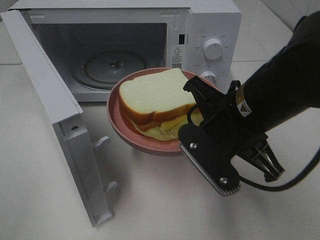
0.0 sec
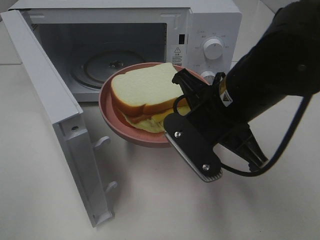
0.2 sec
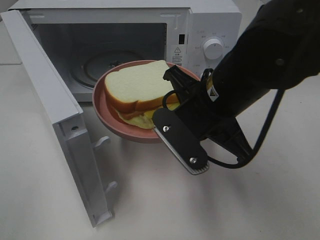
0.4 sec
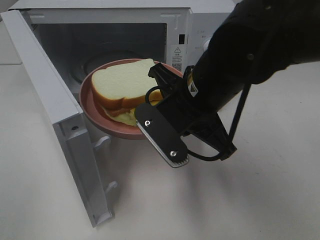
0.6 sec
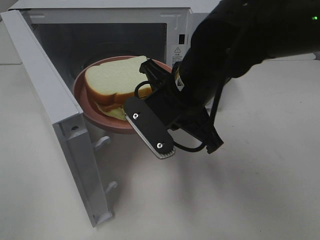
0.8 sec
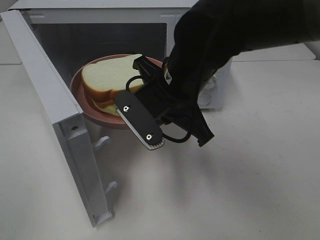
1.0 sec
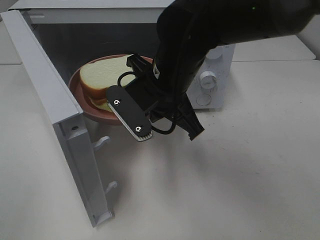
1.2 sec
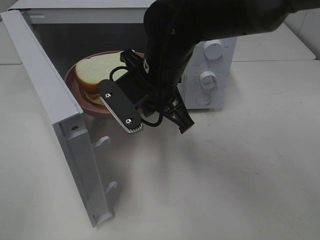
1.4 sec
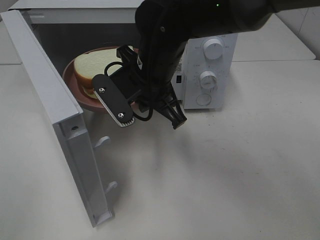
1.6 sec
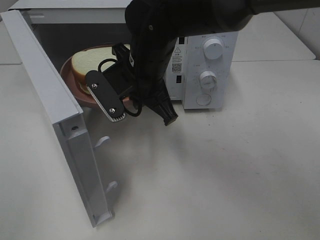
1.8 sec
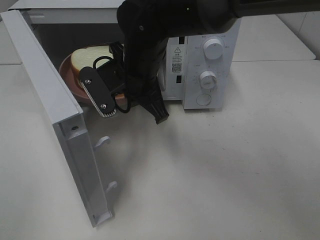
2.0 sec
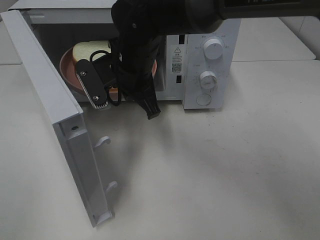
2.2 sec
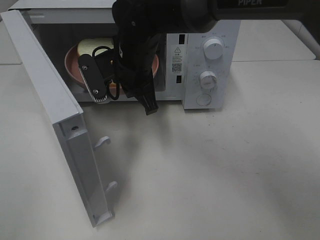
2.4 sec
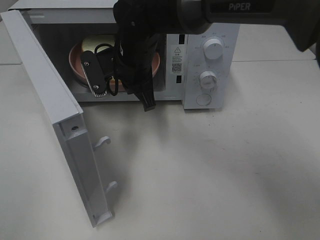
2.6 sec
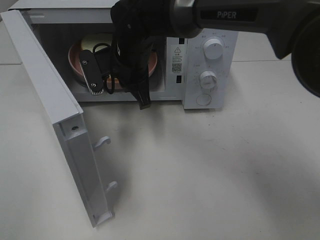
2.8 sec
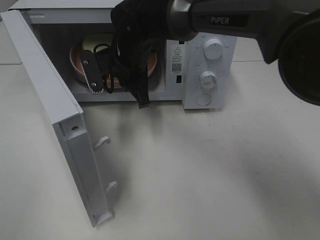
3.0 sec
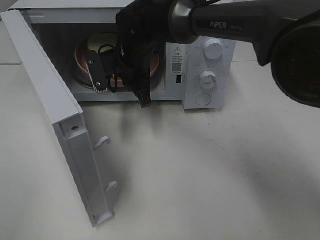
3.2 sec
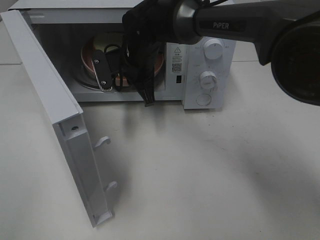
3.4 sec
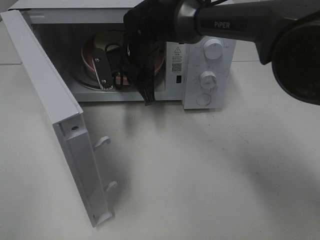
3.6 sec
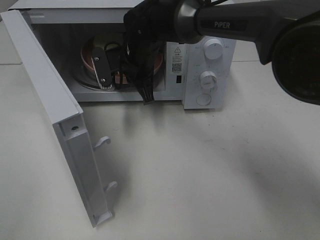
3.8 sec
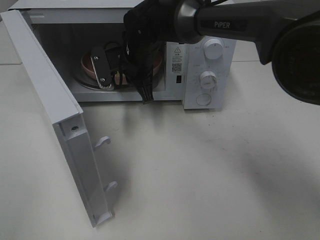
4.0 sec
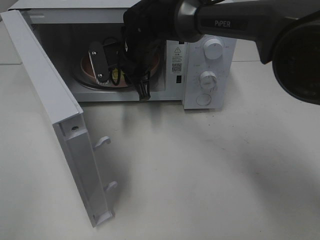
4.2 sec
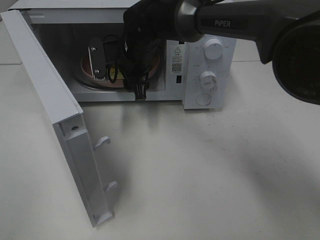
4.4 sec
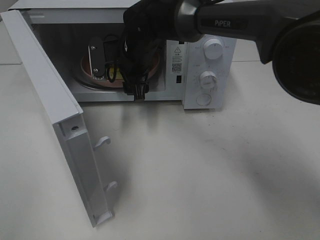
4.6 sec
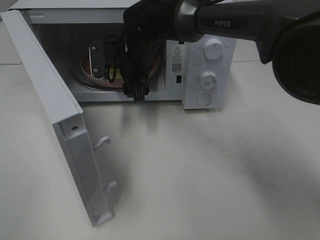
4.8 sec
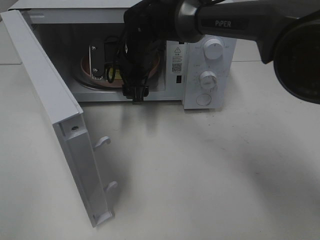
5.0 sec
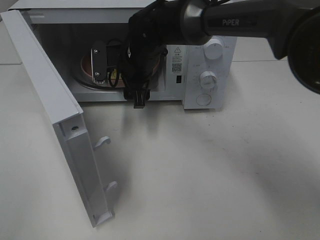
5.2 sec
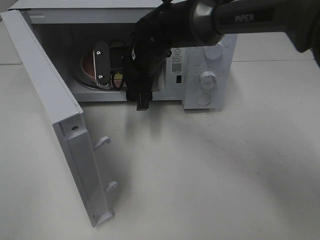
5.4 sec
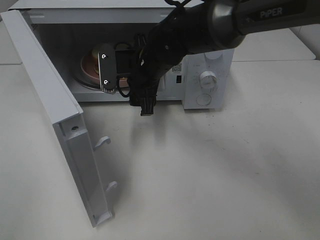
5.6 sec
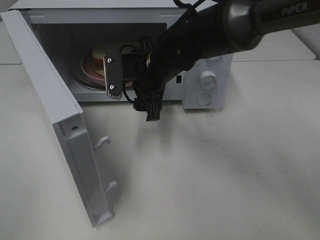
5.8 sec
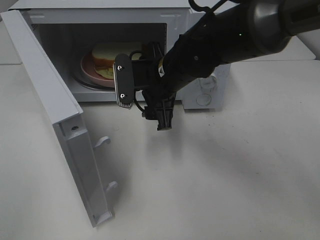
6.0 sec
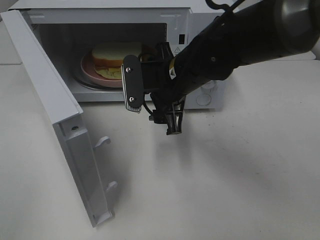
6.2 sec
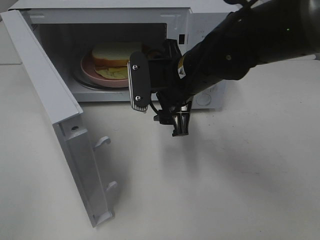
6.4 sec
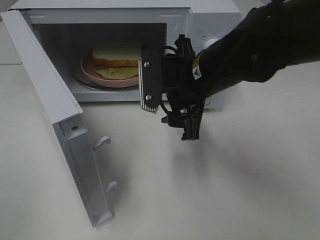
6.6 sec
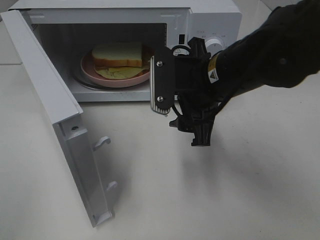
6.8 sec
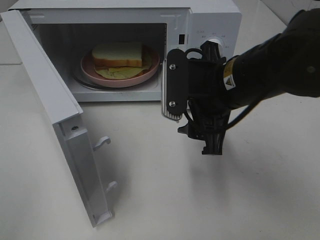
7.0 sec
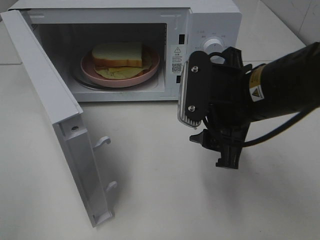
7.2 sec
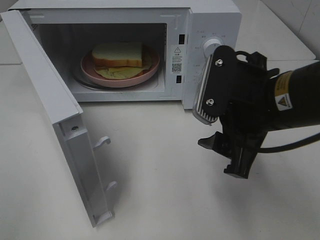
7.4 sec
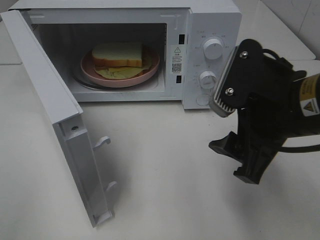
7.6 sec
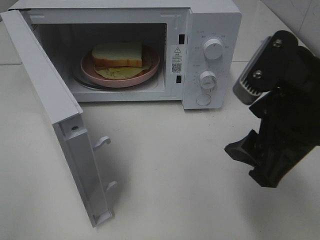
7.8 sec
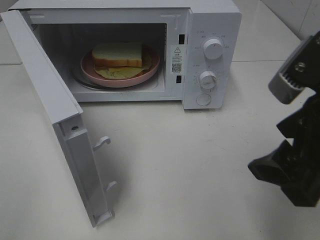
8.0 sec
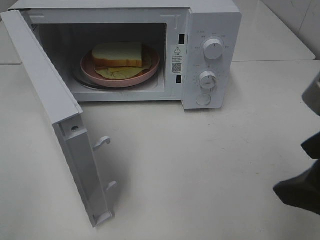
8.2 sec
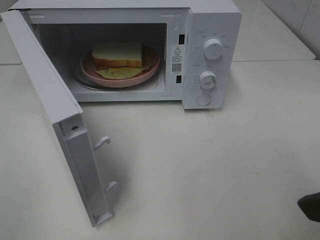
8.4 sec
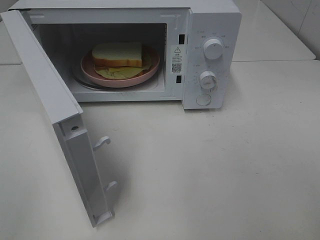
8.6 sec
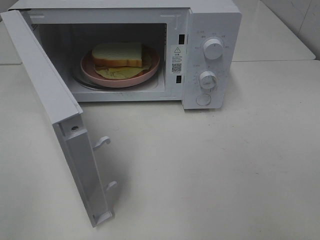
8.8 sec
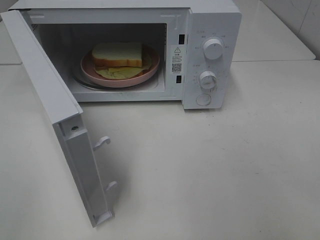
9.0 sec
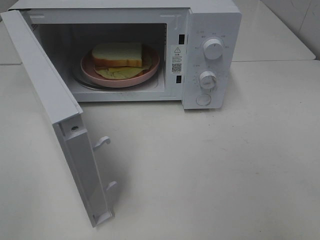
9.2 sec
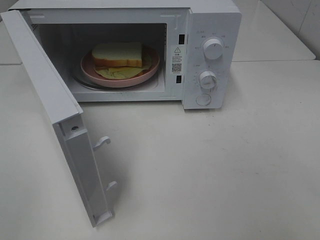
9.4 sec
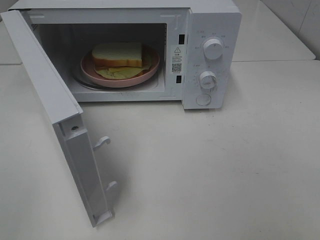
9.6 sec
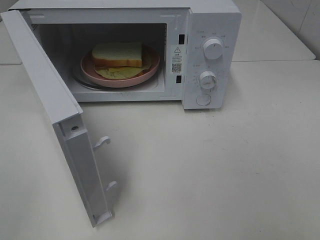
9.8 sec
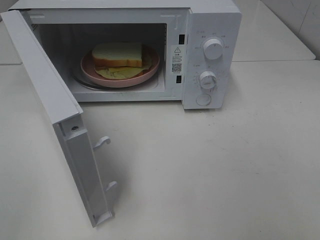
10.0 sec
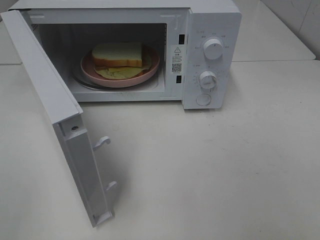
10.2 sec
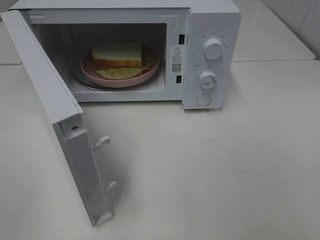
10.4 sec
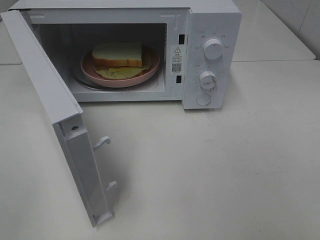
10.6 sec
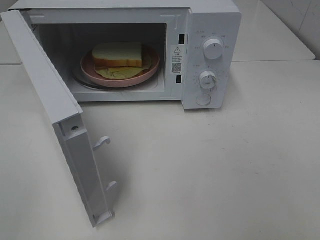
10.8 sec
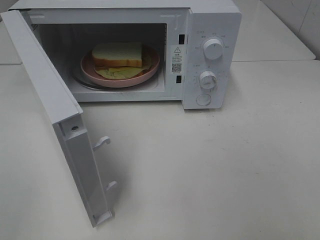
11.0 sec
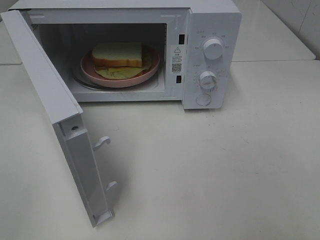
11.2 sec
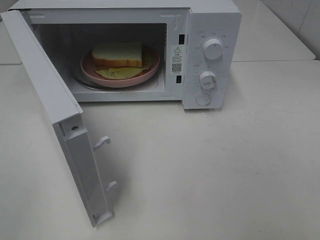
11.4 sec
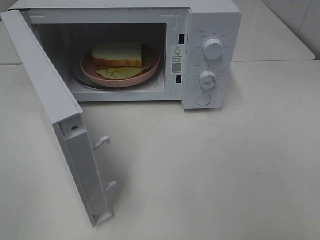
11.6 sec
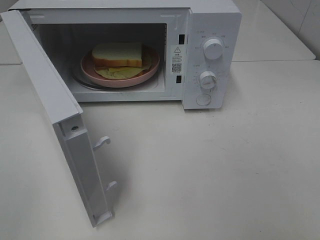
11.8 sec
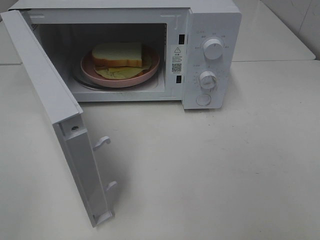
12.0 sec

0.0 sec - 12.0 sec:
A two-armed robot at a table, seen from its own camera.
Task of the whole recording: Heat Sandwich.
Step, 0.0 sec - 5.4 sec: Right hand: place the plate in the microwave.
0.0 sec - 1.6 sec: The right gripper moves to the left and forward, about 15 cm.
1.6 sec - 3.0 sec: The right gripper travels forward by some 10 cm.
3.0 sec - 4.4 sec: The right gripper opens its fingers.
4.4 sec - 6.0 sec: The right gripper travels backward and to the right by roughly 10 cm.
6.0 sec - 7.6 sec: The right gripper travels backward, to the right and upward by some 20 cm.
7.6 sec - 9.0 sec: The right gripper goes approximately 20 cm backward, to the right and upward.
10.4 sec - 12.0 sec: Neither gripper changes place.

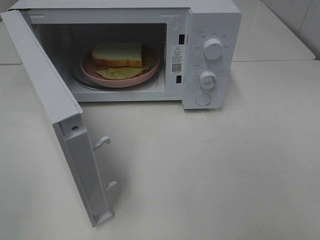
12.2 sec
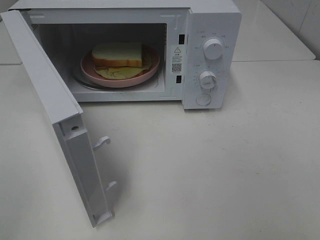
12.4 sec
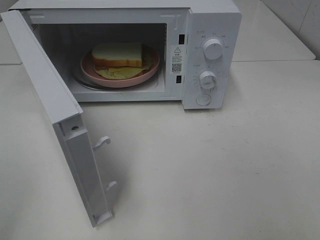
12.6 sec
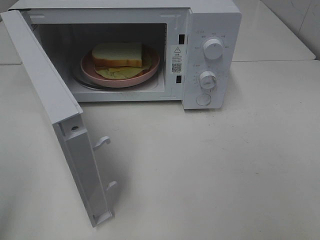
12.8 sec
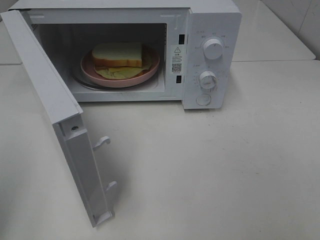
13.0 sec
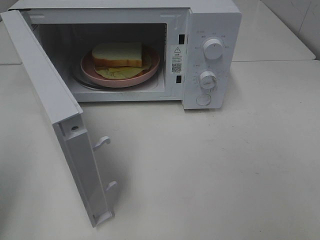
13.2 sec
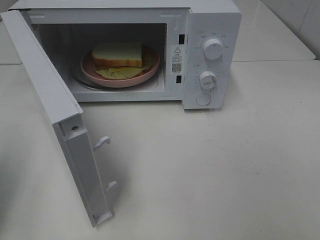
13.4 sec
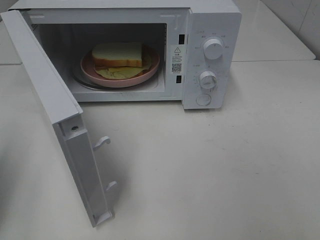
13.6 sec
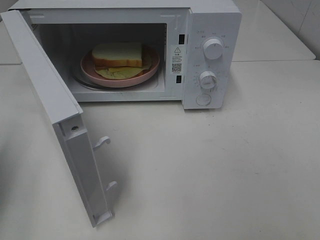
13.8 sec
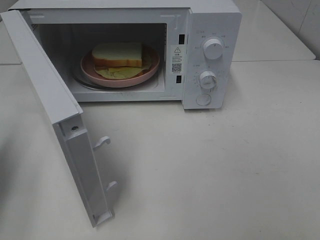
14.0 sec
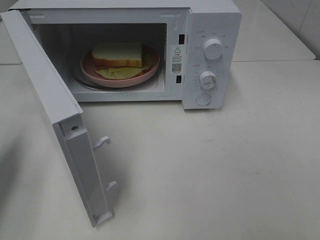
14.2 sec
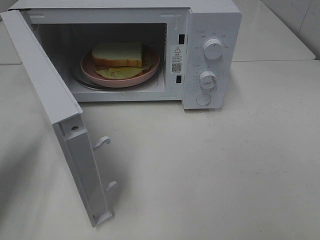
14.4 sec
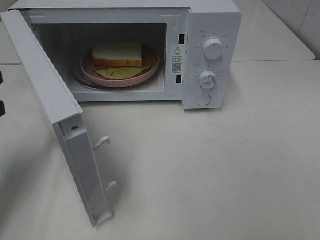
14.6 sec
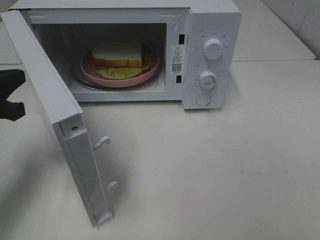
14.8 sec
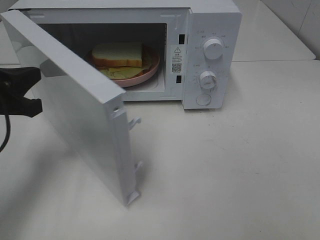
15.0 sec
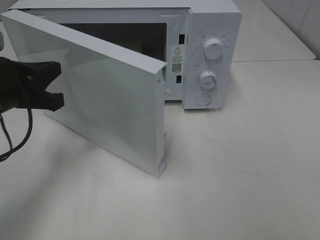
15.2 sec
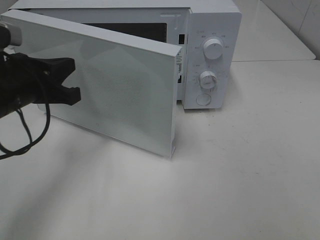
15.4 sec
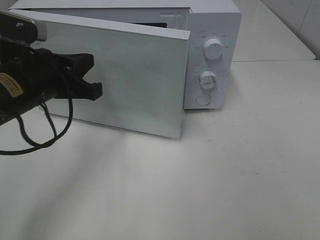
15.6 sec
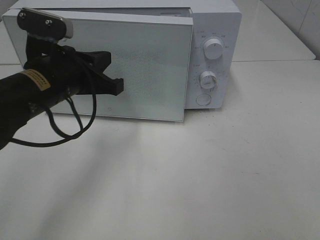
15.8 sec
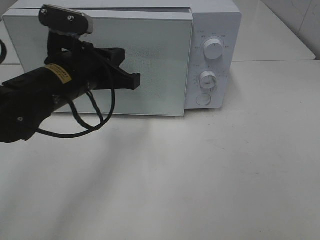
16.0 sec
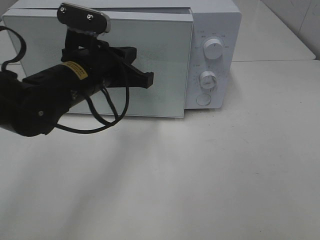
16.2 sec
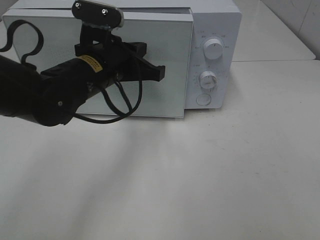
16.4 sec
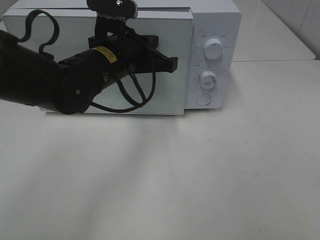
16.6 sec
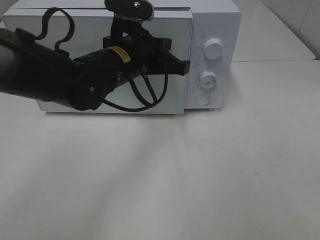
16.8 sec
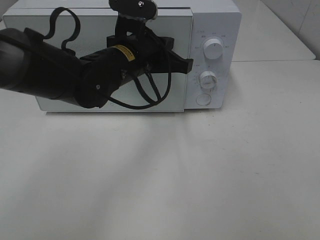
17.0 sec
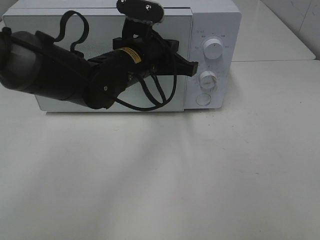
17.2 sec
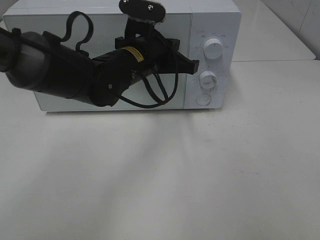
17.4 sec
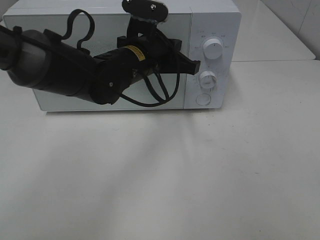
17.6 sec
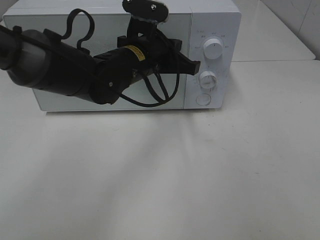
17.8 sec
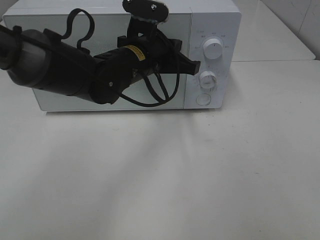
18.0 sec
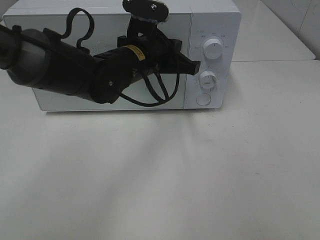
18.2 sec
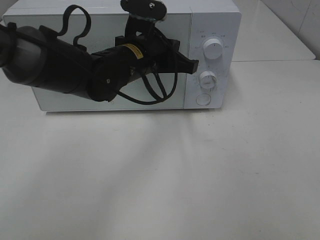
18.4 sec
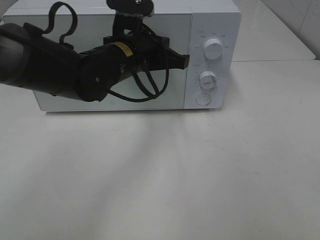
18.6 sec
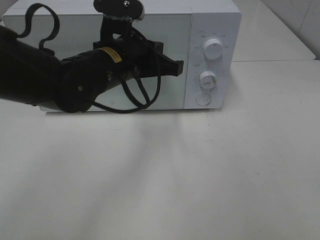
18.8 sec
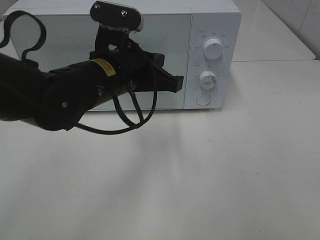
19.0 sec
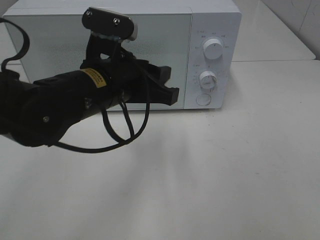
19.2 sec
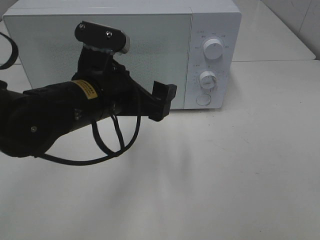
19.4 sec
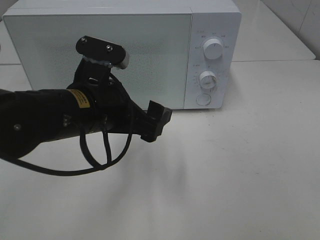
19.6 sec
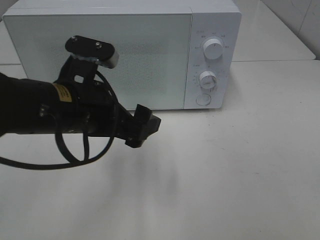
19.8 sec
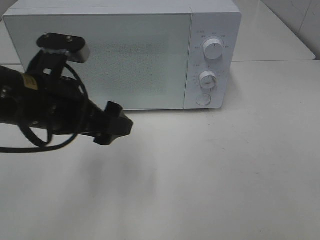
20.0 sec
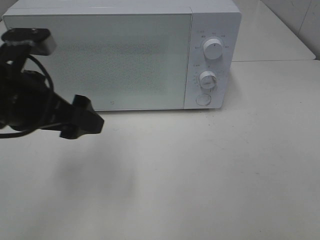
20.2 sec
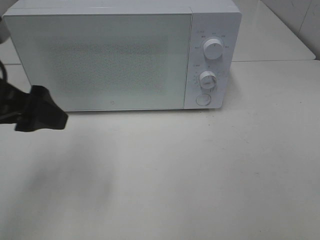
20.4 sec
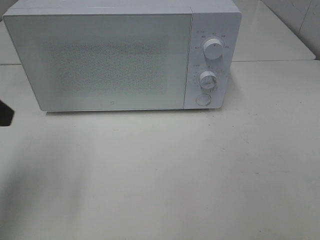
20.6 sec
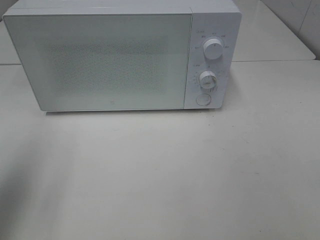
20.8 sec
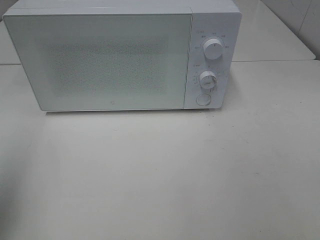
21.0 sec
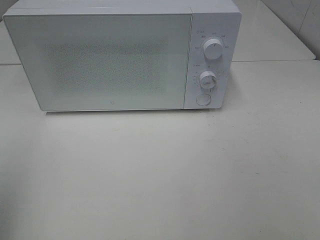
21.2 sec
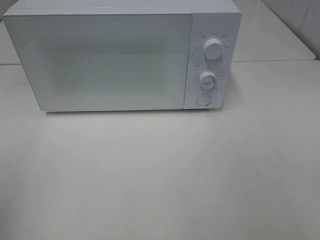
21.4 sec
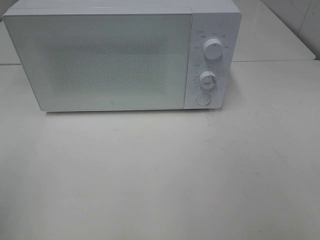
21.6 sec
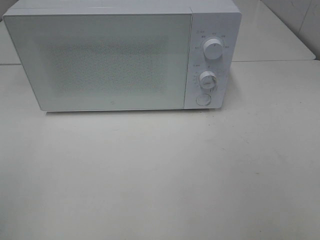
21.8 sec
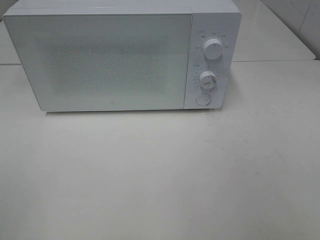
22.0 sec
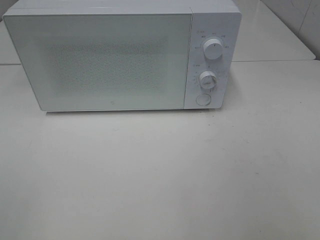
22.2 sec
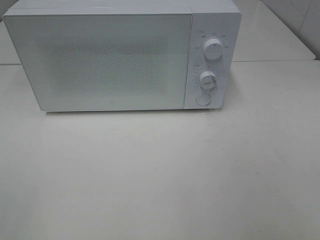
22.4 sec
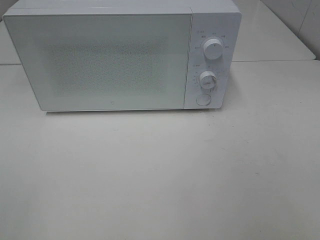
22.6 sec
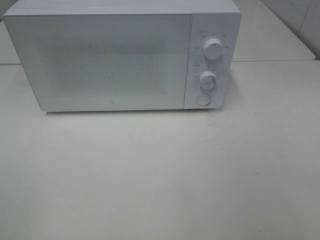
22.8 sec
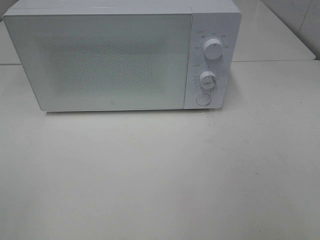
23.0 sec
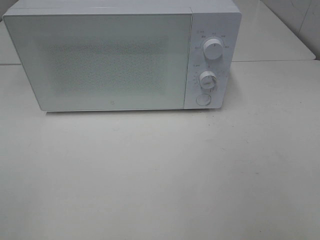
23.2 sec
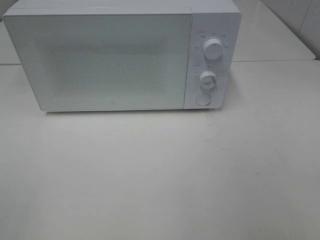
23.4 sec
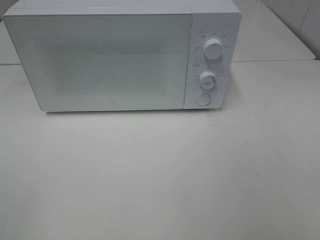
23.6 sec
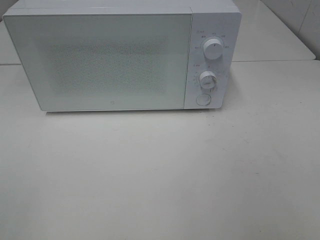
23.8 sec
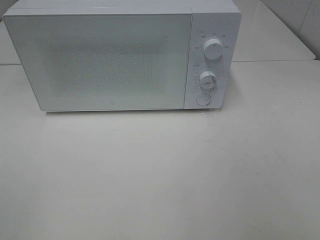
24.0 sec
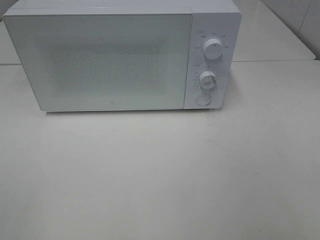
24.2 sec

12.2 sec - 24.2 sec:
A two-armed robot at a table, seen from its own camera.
Task of the whole recording: Heat Sandwich.
Step, 12.2 sec - 19.0 sec: Left hand: close the microwave door.
12.2 sec - 13.8 sec: The left gripper travels forward by roughly 20 cm, and closes.
13.8 sec - 15.2 sec: The left gripper is displaced to the right, forward and downward by some 15 cm.
15.2 sec - 16.6 sec: The left gripper moves to the right and forward, approximately 15 cm.
16.6 sec - 18.2 sec: The grippers move only a little.
18.2 sec - 19.8 sec: The left gripper moves backward and to the left, roughly 15 cm, and opens its fingers.
19.8 sec - 21.2 sec: The left gripper shifts roughly 30 cm to the left, backward and upward.
22.6 sec - 24.2 sec: Both grippers stay put.
